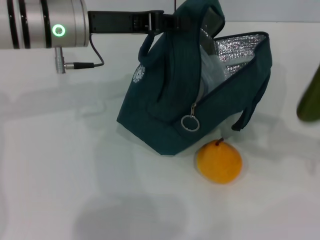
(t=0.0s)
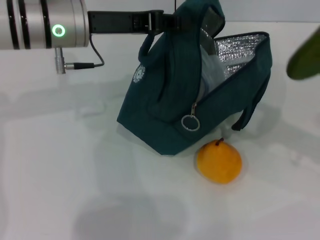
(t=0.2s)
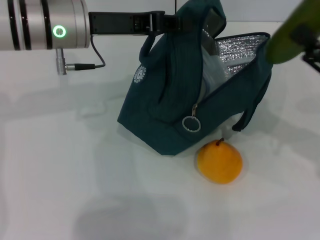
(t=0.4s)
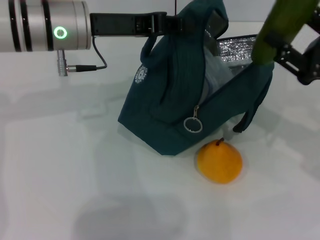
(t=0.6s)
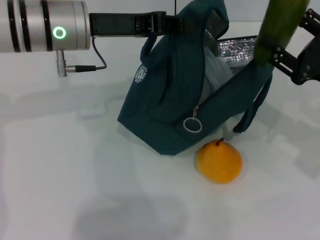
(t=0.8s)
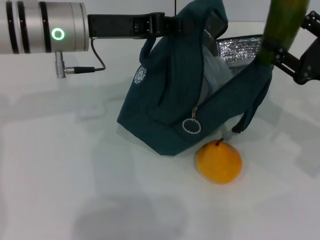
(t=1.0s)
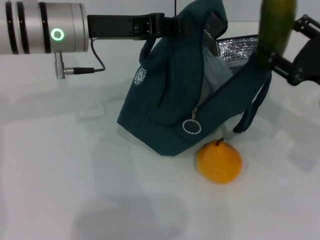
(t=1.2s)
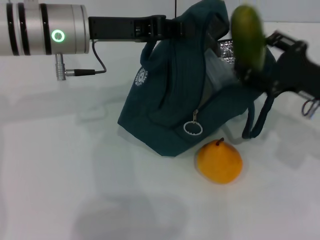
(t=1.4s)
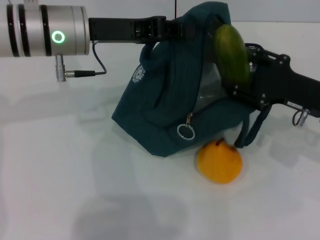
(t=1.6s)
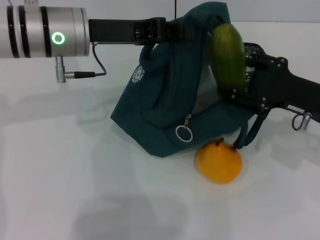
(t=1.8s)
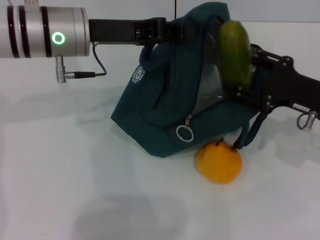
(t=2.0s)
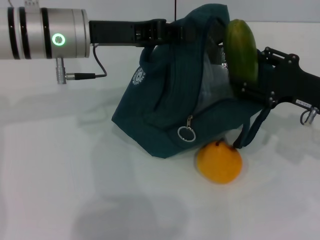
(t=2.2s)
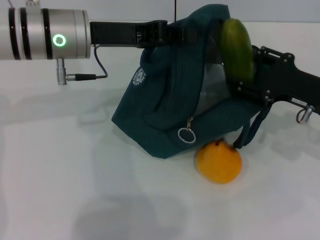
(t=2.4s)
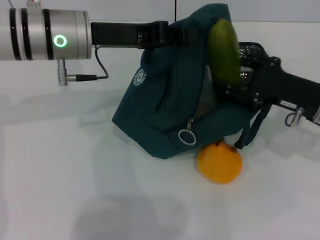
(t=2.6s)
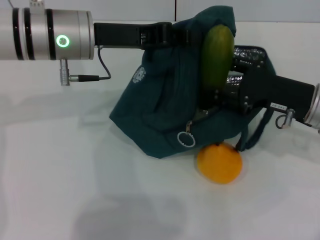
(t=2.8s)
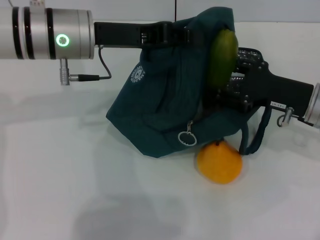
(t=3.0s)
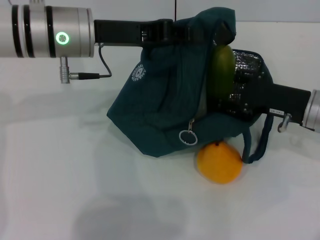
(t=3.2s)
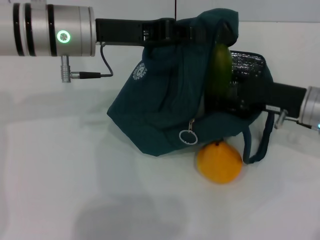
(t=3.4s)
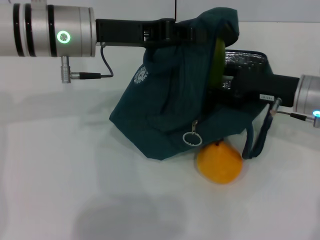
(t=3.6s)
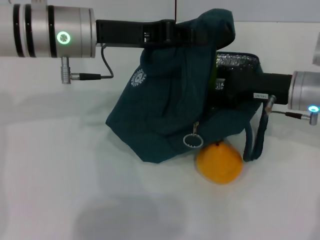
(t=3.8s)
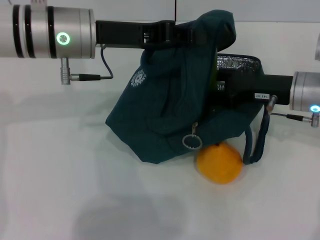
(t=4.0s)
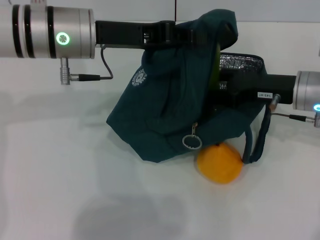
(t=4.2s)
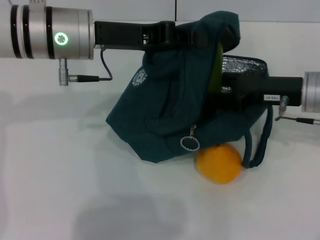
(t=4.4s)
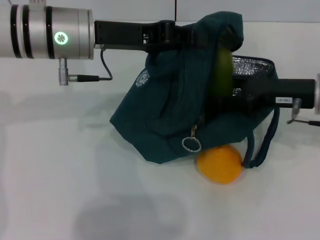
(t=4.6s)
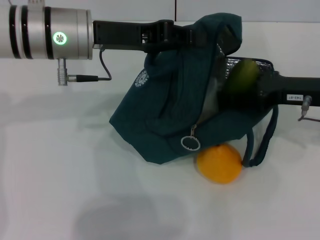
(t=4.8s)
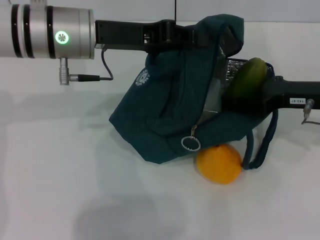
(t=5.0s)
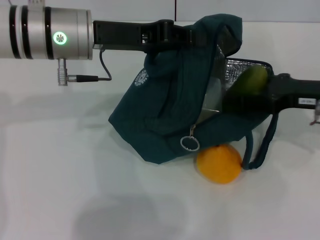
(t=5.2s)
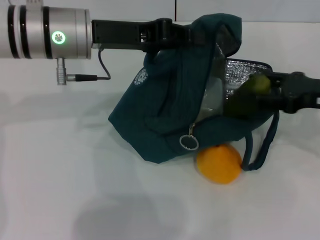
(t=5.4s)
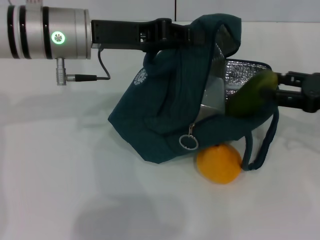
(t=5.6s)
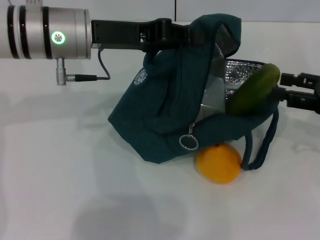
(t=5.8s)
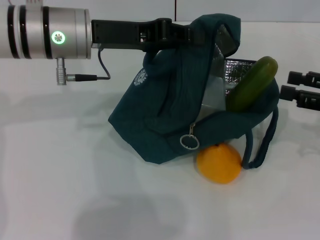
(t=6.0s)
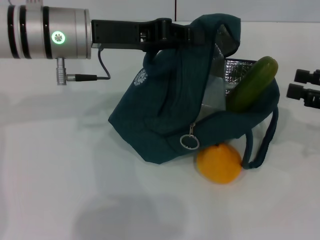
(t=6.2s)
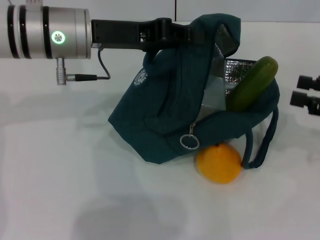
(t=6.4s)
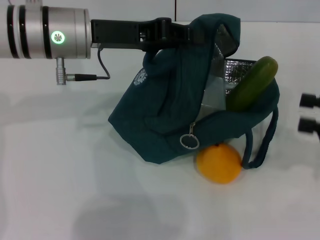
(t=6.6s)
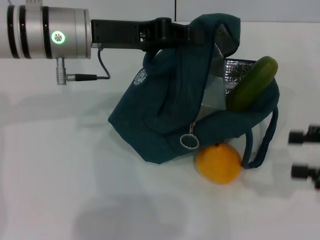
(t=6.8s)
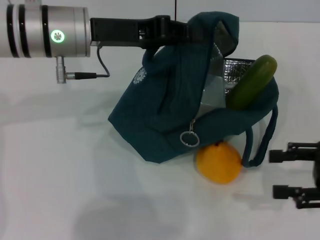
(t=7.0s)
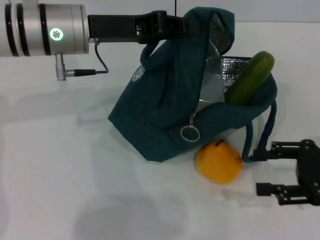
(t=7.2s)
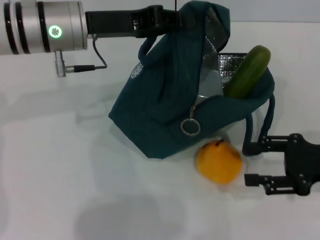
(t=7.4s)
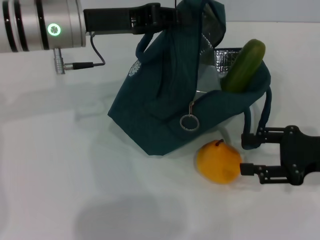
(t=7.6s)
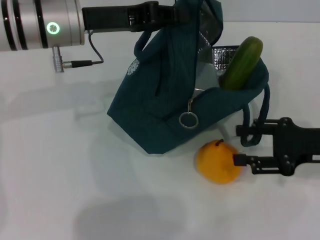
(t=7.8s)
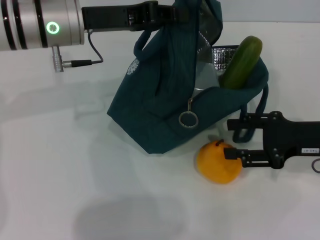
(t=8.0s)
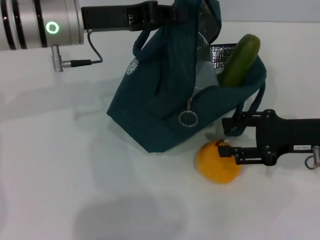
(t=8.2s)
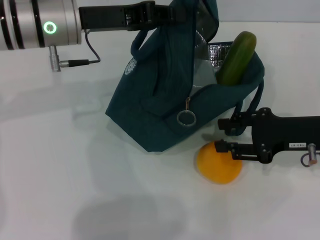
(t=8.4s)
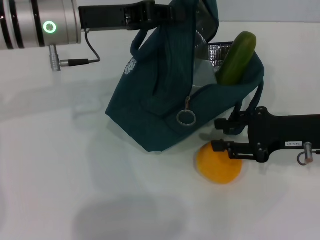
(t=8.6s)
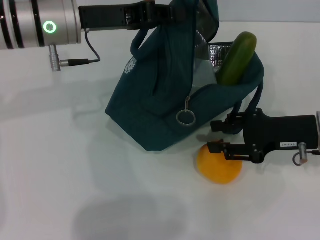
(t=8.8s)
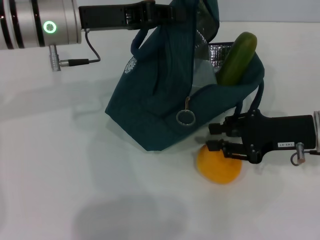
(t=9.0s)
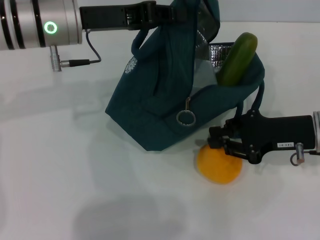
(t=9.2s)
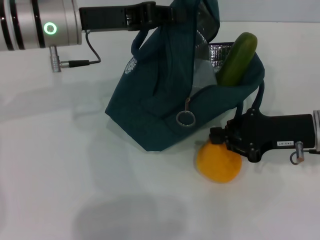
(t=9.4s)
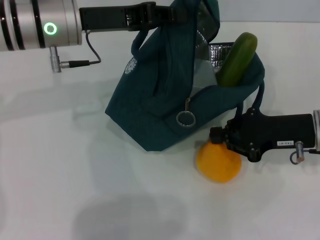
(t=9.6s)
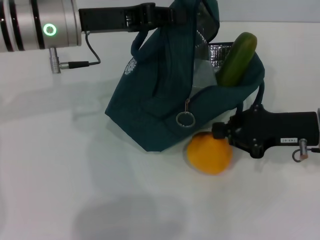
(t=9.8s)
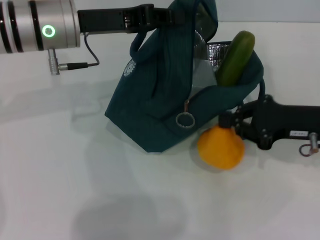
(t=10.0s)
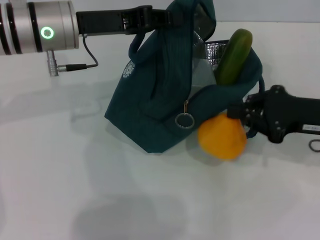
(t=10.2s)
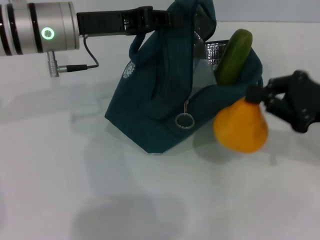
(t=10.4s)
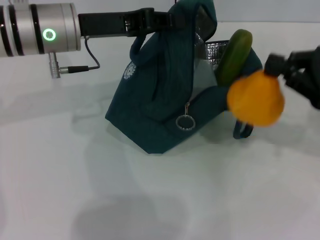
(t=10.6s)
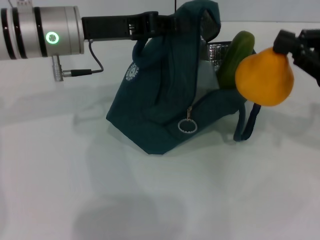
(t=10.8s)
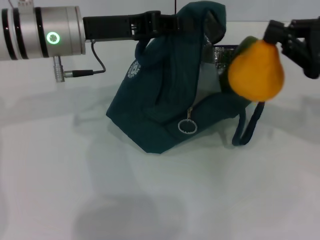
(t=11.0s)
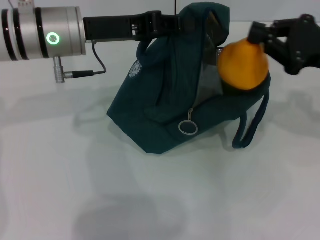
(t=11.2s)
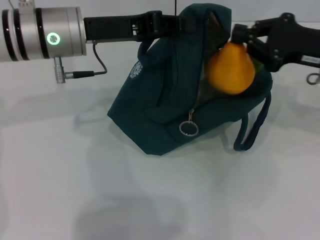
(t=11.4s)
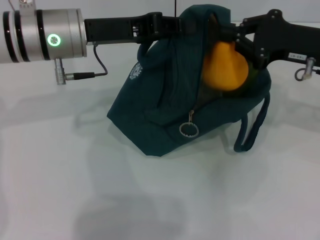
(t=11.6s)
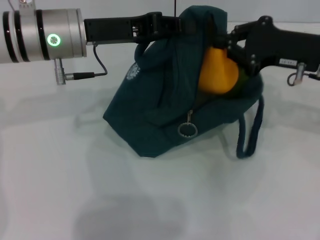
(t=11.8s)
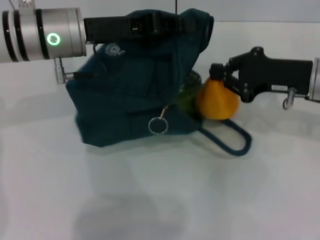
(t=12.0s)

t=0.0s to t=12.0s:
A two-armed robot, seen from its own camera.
Step, t=0.0s to t=5.6s: Put the cucumber into the lunch bag with your right hand.
Step, t=5.8s to t=9.4s: Grab the pear with your right hand.
t=0.0s to t=1.6s: The right gripper shifts some 15 cm to the left, downward and forward.
t=1.6s to t=3.0s: The grippers move only a little.
t=4.4s to t=6.0s: The right gripper is displaced to the right and backward by roughly 15 cm.
t=6.0s to t=7.6s: The right gripper changes place by about 5 cm.
t=7.6s to t=9.0s: The right gripper travels to the left by roughly 5 cm.
t=9.0s to t=10.4s: The right gripper shifts by approximately 5 cm, and closes.
t=10.4s to t=12.0s: The right gripper heads forward and to the left, covering approximately 10 cm.

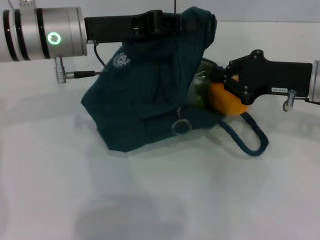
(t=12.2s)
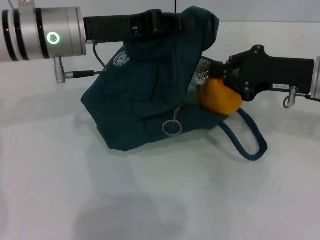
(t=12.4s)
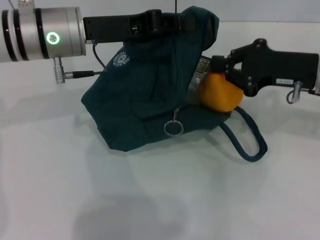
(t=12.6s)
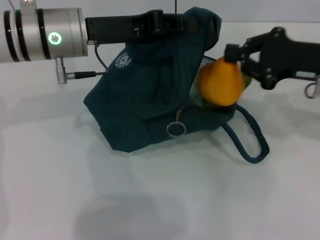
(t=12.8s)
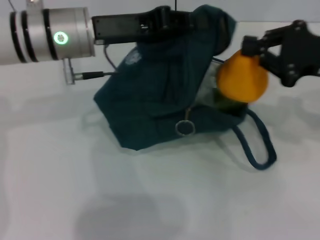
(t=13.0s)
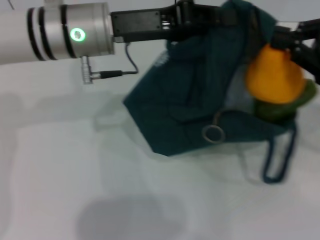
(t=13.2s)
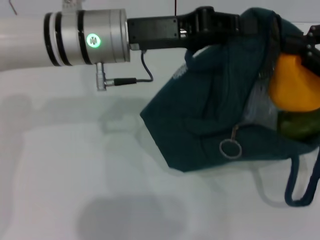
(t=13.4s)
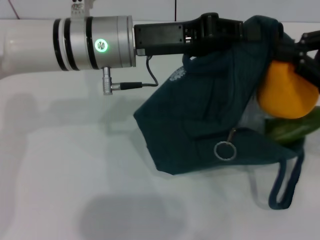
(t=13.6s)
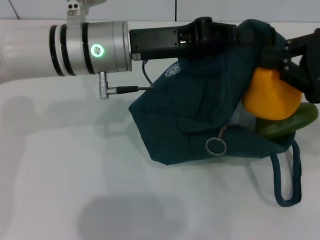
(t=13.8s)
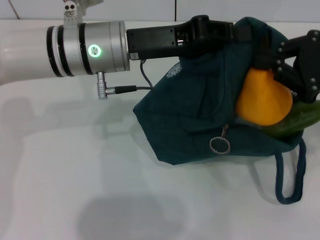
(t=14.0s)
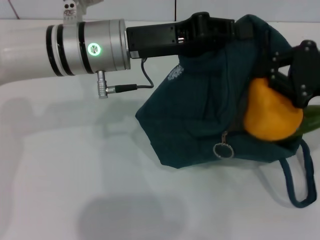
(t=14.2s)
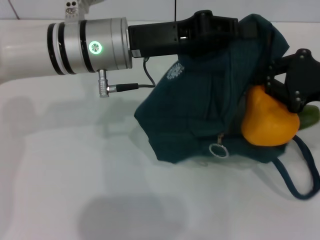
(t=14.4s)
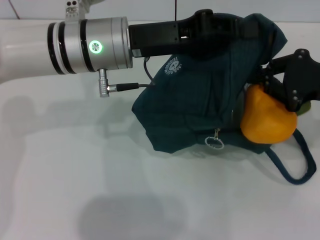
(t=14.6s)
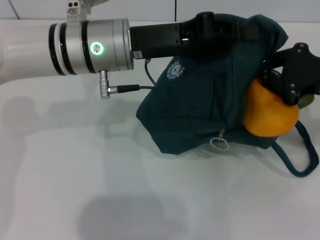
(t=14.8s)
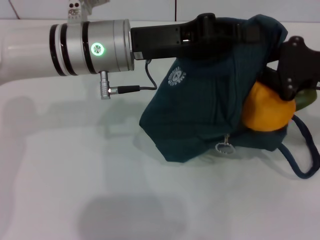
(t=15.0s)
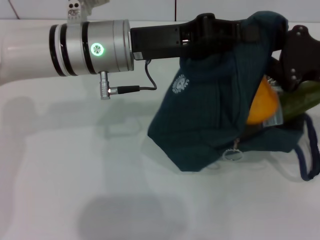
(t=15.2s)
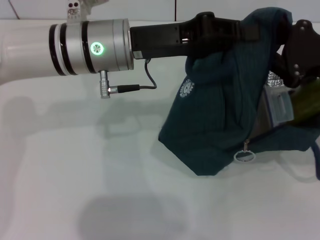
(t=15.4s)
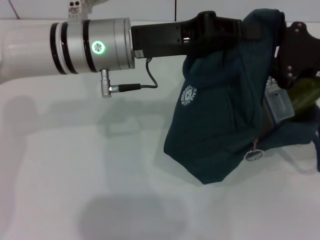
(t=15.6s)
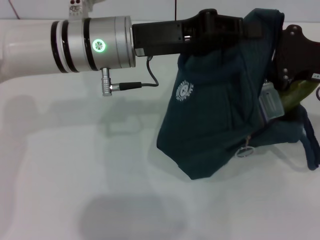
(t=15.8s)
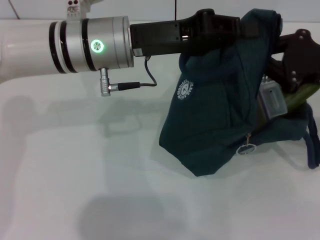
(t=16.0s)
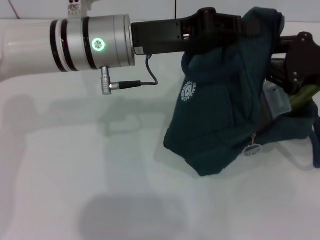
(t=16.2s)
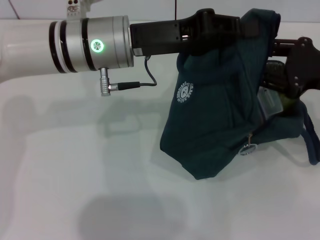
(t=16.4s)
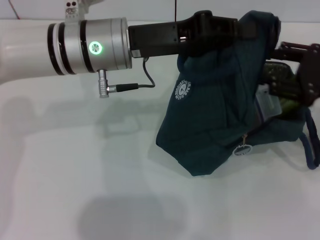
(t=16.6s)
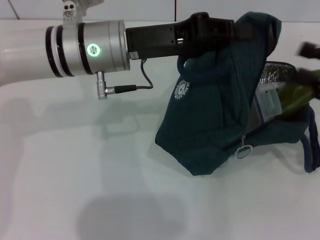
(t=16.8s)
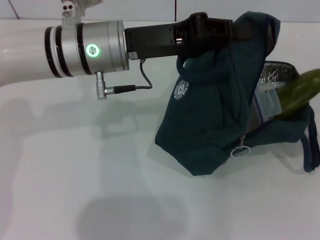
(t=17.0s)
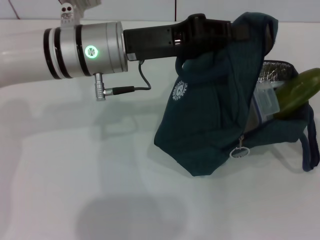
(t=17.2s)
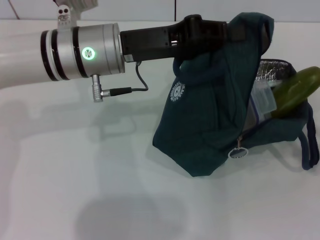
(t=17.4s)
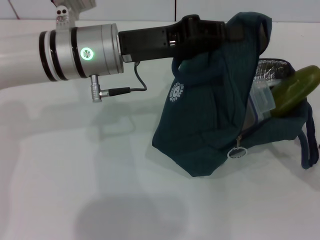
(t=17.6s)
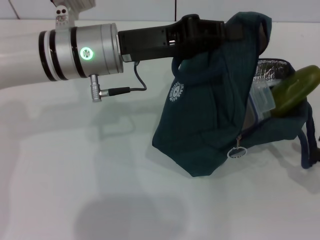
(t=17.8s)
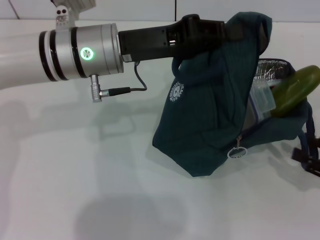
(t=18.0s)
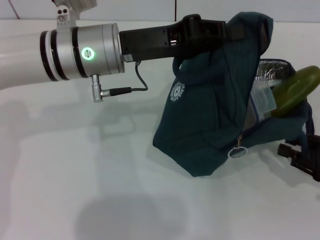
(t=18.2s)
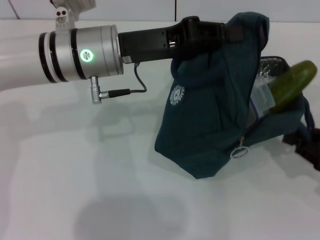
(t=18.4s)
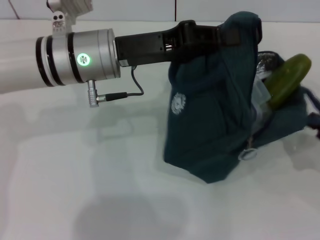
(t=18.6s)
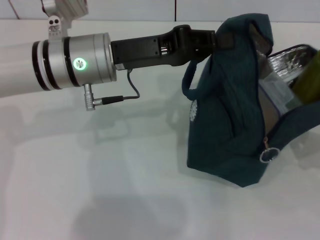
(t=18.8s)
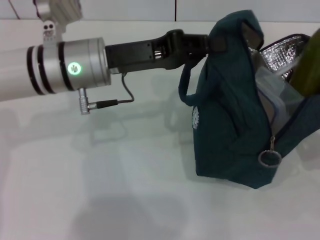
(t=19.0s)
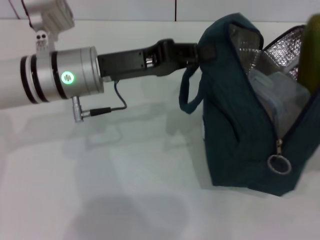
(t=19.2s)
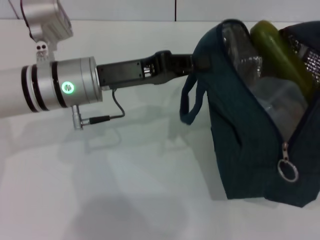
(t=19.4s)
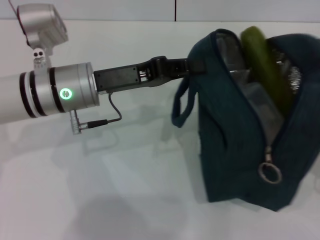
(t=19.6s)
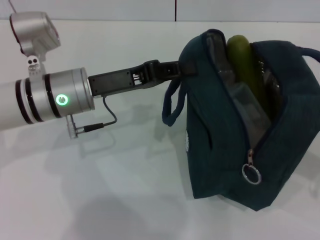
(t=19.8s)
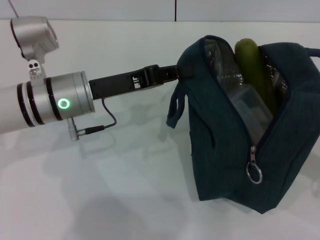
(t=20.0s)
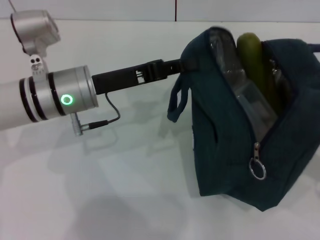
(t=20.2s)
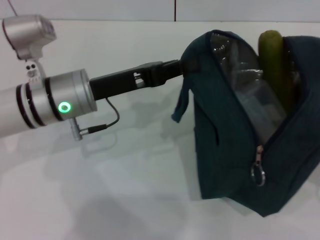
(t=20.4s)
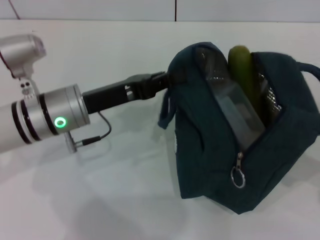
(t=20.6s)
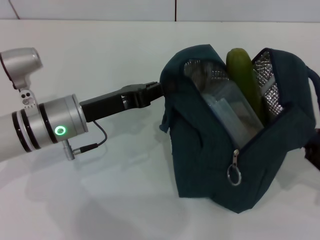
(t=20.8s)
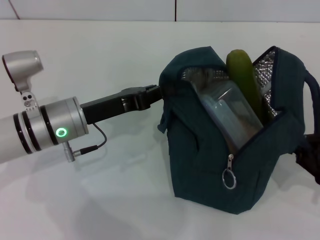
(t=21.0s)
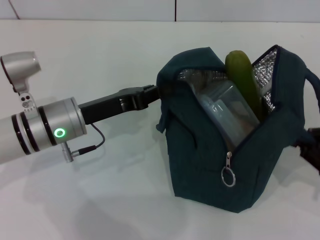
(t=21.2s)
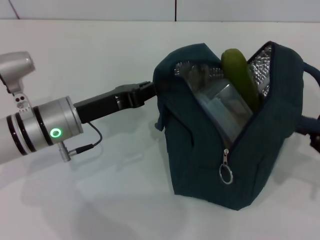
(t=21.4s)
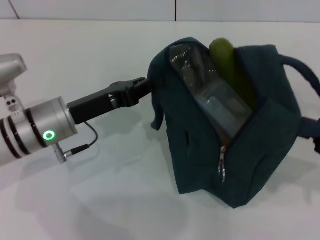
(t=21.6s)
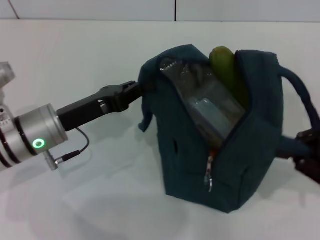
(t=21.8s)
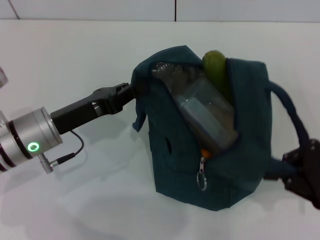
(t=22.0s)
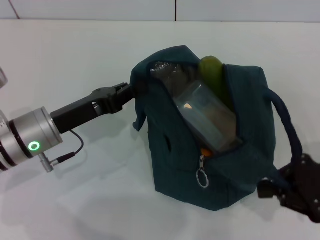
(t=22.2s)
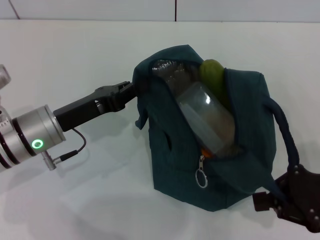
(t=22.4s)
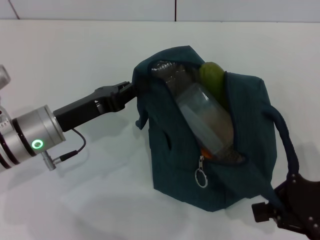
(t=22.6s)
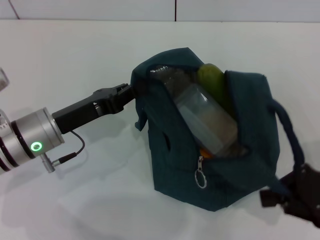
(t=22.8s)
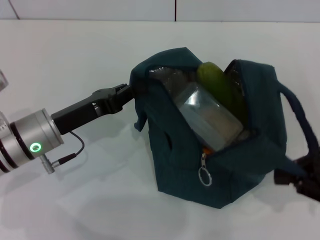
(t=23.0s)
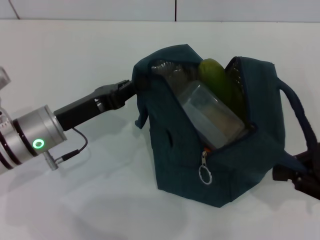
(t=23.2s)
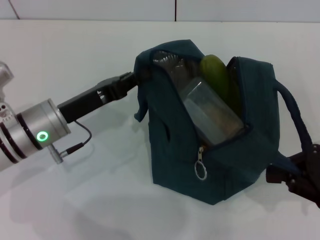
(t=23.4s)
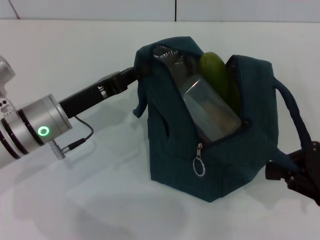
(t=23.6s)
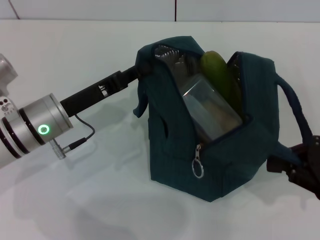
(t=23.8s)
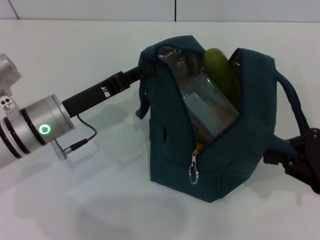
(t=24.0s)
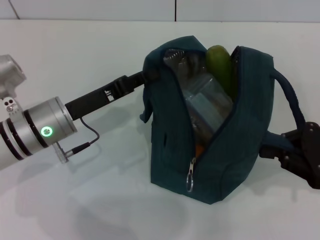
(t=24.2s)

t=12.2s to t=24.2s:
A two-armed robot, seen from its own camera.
Step, t=12.2s to t=16.6s: Secure the lunch bag with your left hand.
t=12.2s to t=13.8s: The left gripper is displaced to the right by some 5 cm. Meanwhile the right gripper travels to the right and upward by roughly 10 cm.
t=13.8s to t=15.2s: The grippers move only a little.
t=15.2s to t=16.6s: The right gripper opens its fingers.
t=16.6s to t=18.2s: The right gripper goes some 15 cm downward and backward.
t=18.2s to t=19.8s: The left gripper moves downward, roughly 5 cm; the right gripper heads upward, covering about 5 cm, and closes.
t=19.8s to t=21.2s: The left gripper shifts by some 5 cm.
t=21.2s to t=22.6s: The right gripper moves roughly 5 cm.
